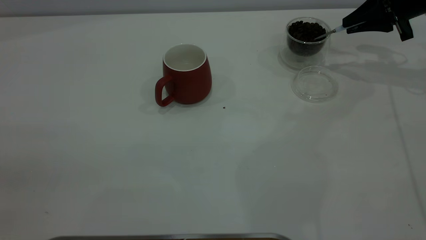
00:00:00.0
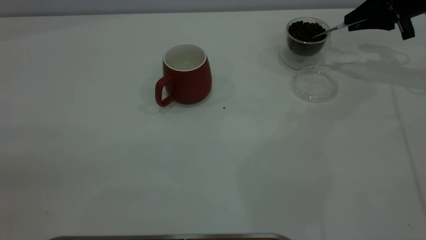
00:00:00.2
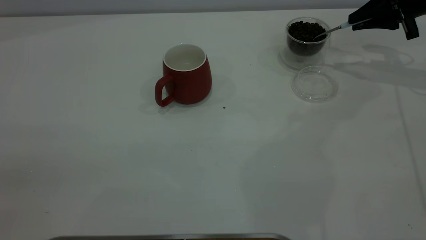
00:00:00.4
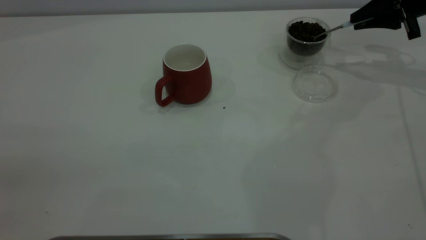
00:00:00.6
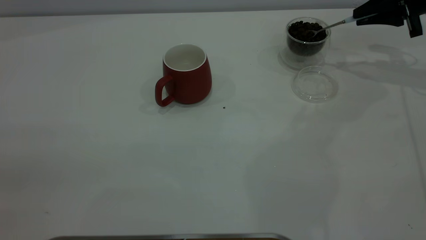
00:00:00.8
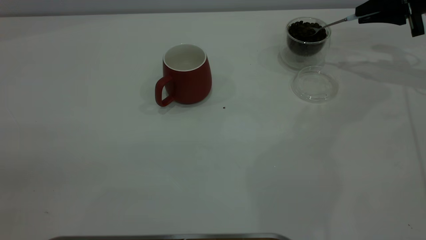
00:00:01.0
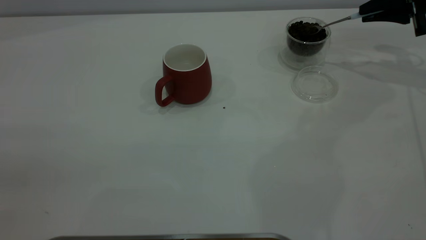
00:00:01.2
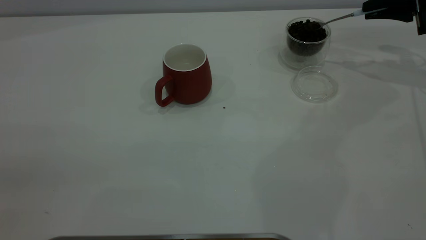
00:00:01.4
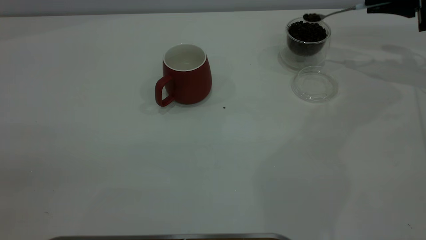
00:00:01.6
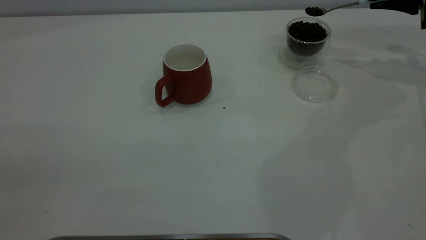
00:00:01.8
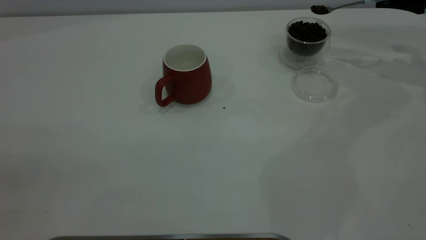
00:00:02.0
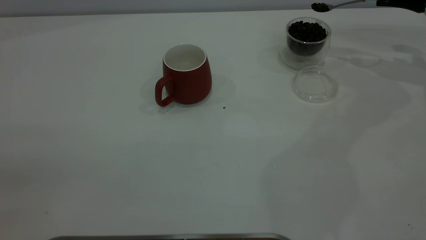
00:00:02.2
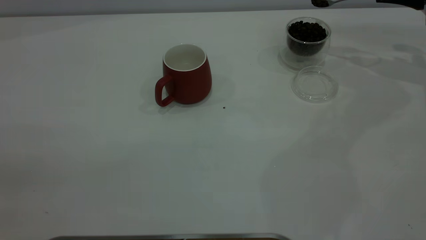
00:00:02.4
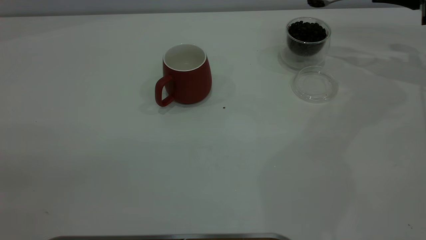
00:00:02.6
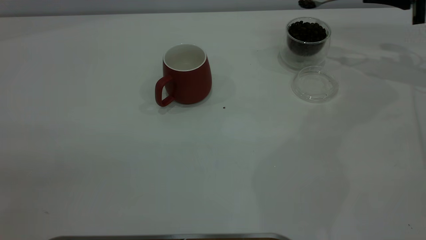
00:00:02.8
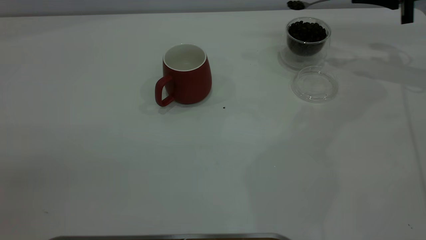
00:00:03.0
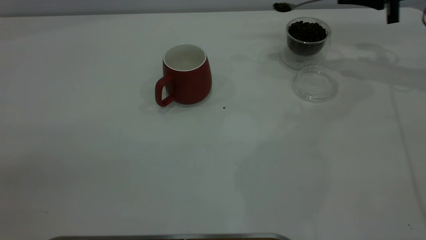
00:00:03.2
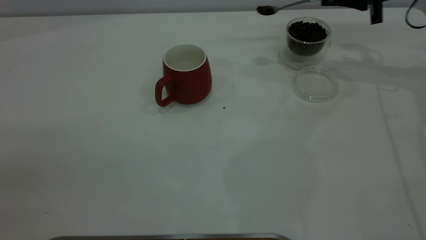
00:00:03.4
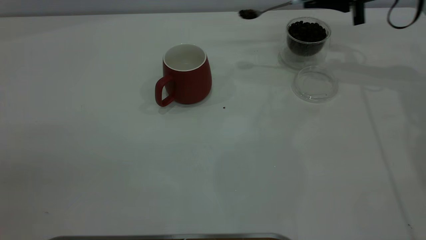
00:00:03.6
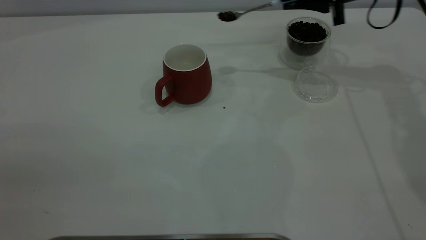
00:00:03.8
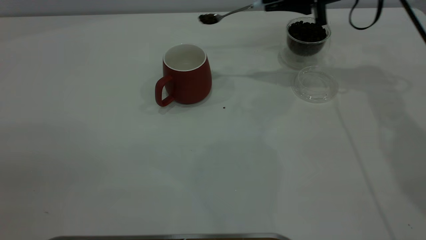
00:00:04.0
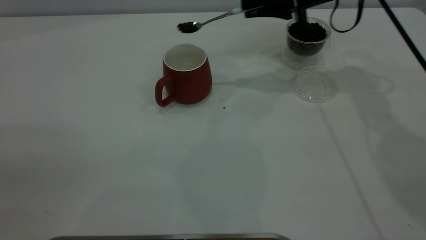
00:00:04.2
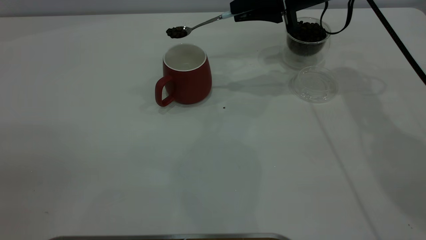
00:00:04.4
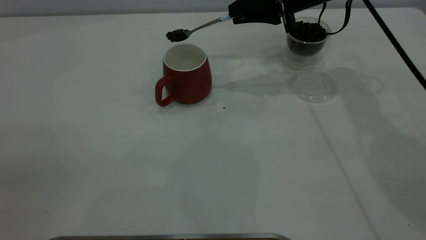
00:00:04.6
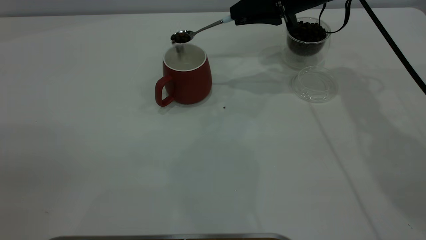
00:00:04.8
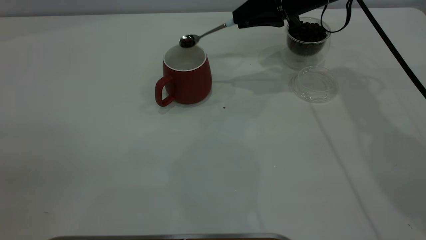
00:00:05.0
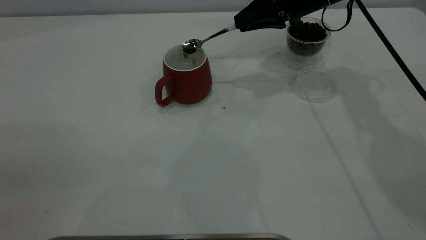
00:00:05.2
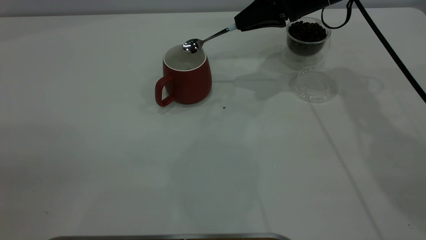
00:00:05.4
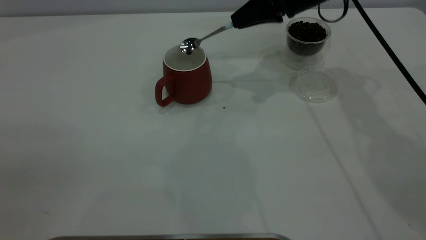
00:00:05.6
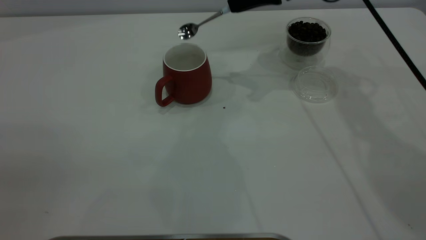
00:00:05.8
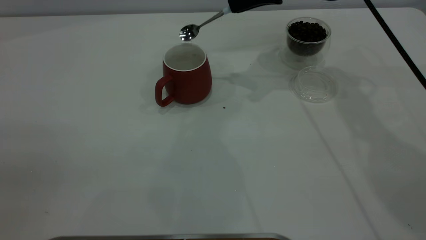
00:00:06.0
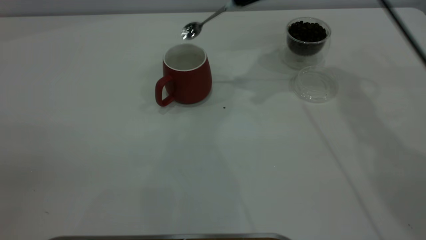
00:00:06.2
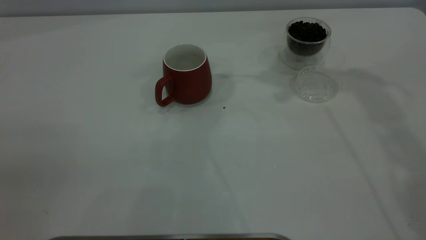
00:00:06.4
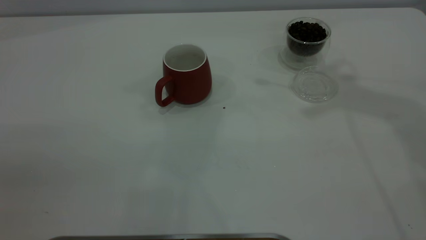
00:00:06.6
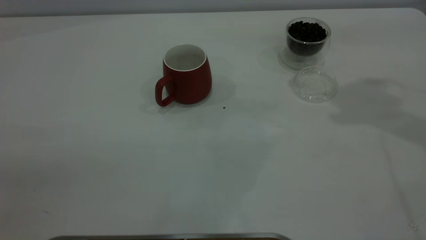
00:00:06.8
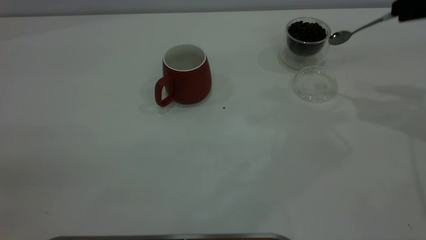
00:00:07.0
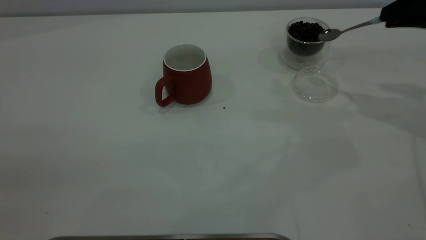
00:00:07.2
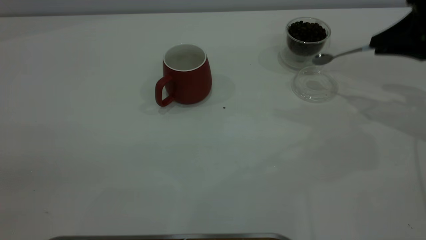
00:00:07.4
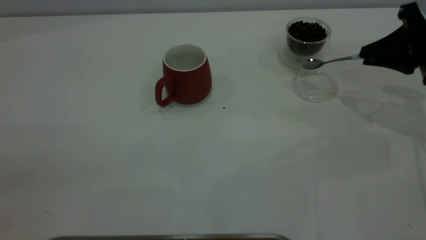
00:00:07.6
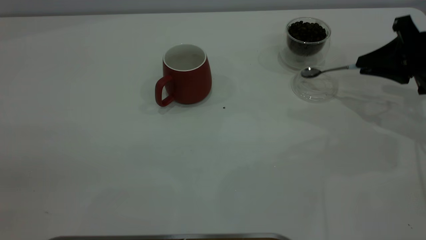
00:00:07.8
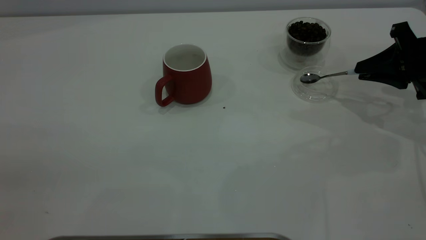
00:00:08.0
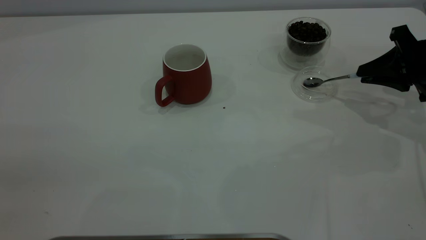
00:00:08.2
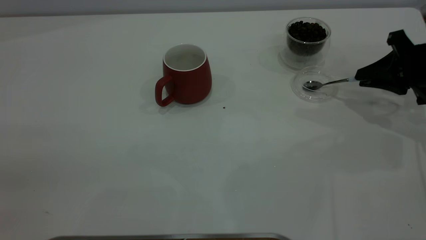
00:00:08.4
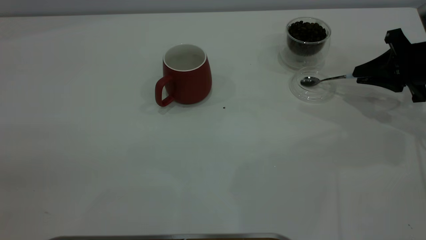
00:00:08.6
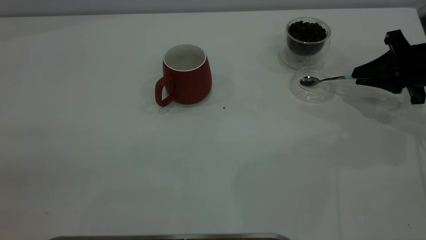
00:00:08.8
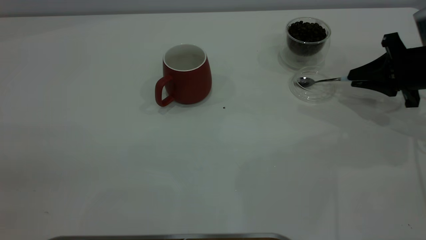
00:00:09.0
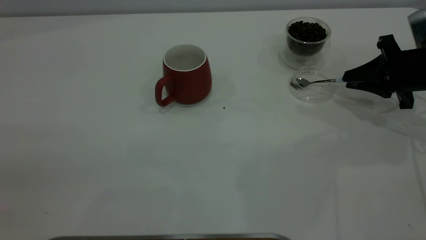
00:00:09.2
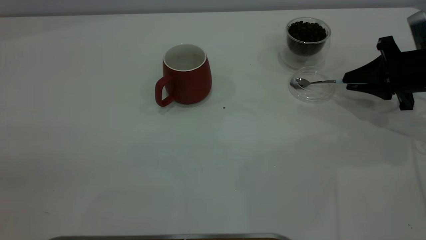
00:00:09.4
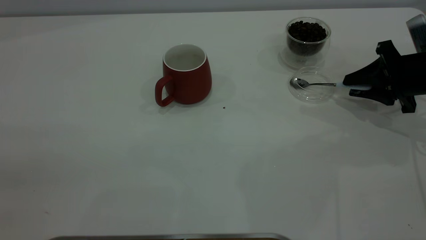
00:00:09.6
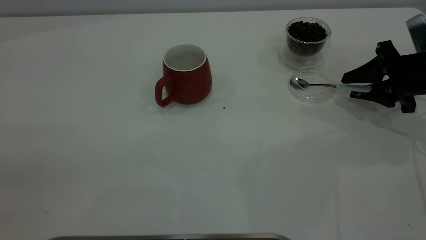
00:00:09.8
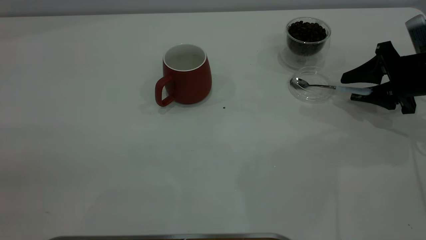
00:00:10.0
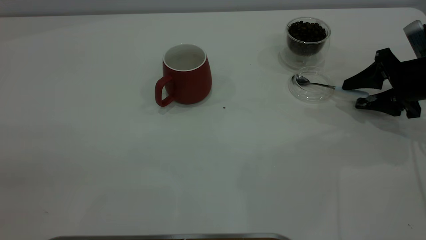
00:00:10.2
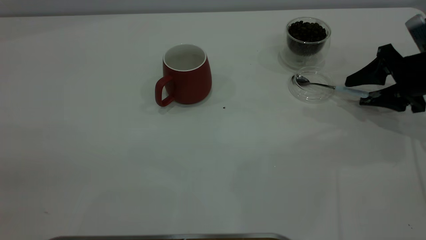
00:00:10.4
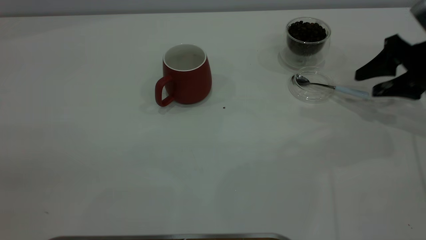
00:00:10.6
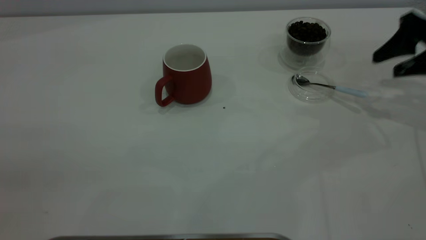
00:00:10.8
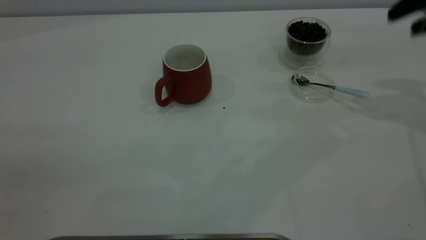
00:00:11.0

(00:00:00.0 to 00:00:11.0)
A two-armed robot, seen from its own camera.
Task of the whole recording: the left gripper place the red cup in the center of the table, the right gripper take the blue spoon from the cup lid and scoop out the coffee beans from the coffee cup and put them into the red cup, the right gripper put the spoon back into the cup lid.
Step, 00:00:00.0 - 00:00:05.8: Scoop a spoonful of beans into the cup.
Step, 00:00:06.0 - 00:00:10.6: Place the spoon back in its original place.
00:00:00.0 - 00:00:01.6: The grippers stay close to where they were, moving slightly.
00:00:01.6 - 00:00:03.2: The right gripper shifts some 5 cm to the left.
00:00:03.2 - 00:00:04.8: The right gripper shifts roughly 15 cm to the left.
00:00:04.8 - 00:00:06.2: The right gripper moves upward, roughly 5 cm.
00:00:06.2 - 00:00:07.8: The right gripper travels to the right, downward and backward by approximately 25 cm.
00:00:07.8 - 00:00:09.4: The grippers make only small movements.
00:00:09.4 - 00:00:11.0: The right gripper goes roughly 20 cm upward, and opens.

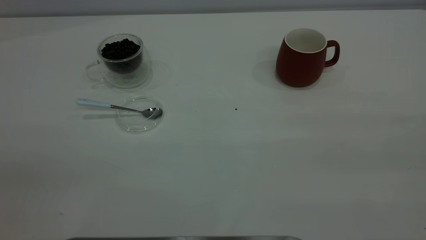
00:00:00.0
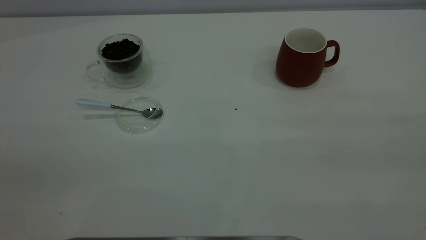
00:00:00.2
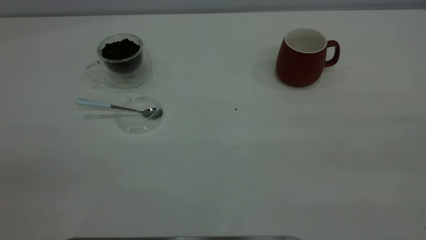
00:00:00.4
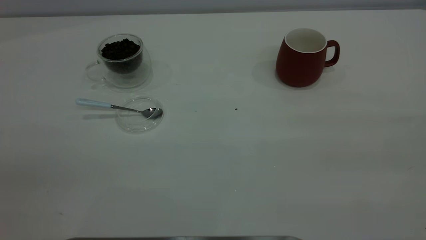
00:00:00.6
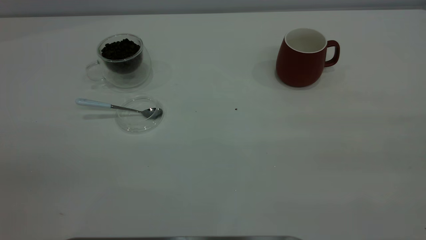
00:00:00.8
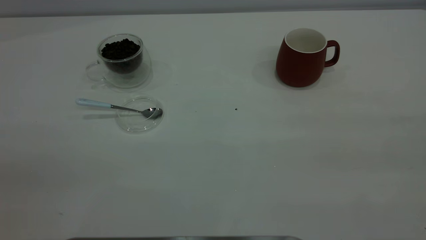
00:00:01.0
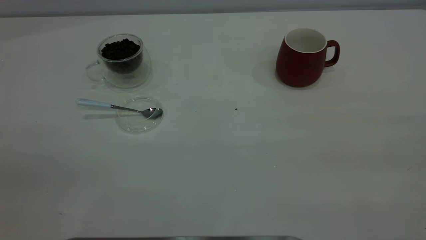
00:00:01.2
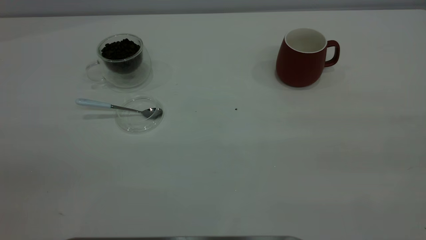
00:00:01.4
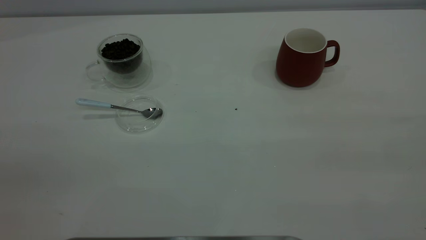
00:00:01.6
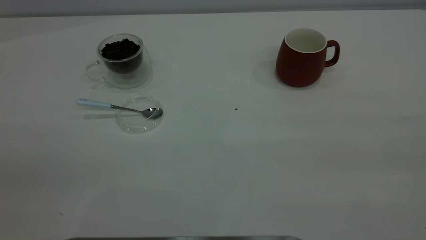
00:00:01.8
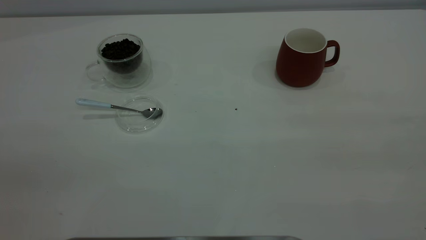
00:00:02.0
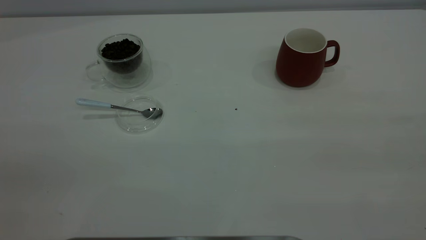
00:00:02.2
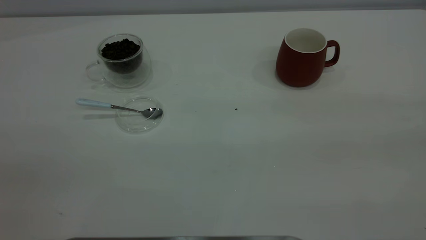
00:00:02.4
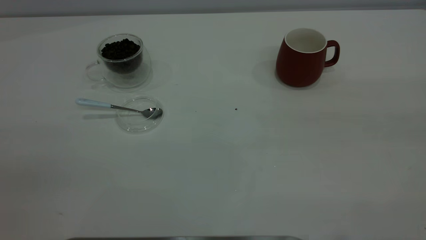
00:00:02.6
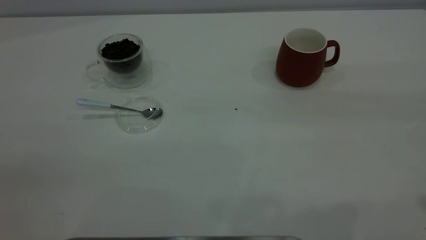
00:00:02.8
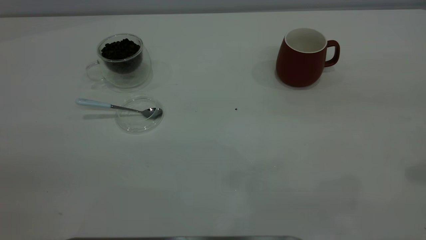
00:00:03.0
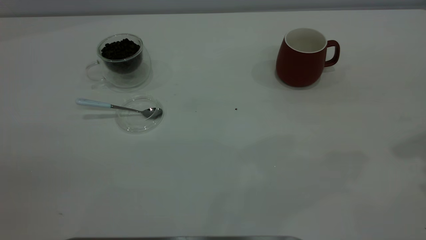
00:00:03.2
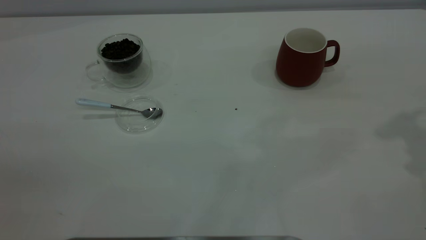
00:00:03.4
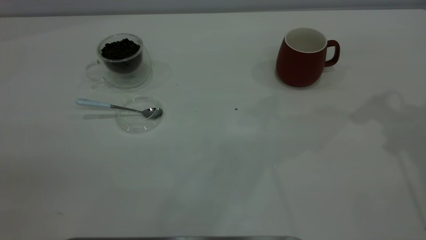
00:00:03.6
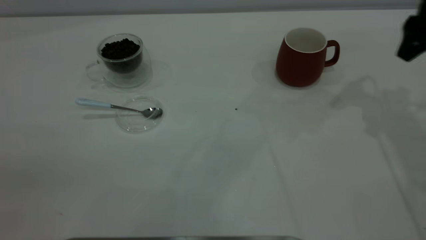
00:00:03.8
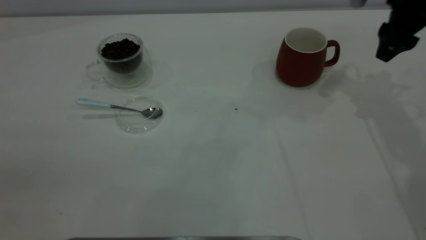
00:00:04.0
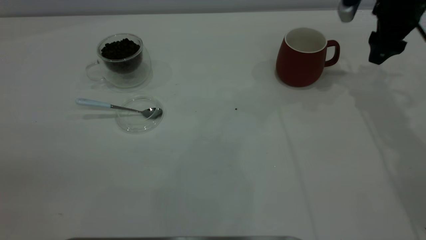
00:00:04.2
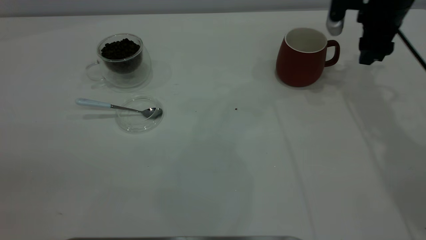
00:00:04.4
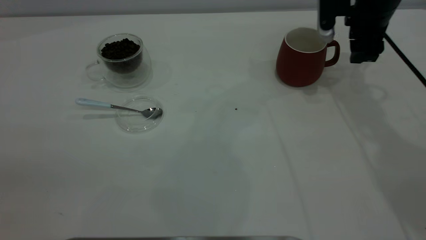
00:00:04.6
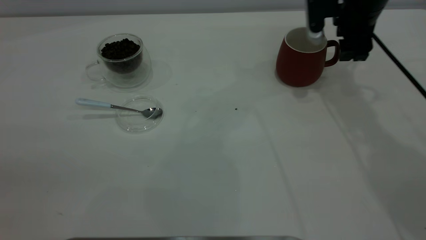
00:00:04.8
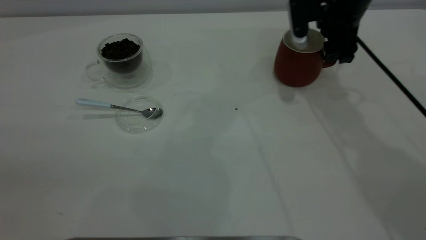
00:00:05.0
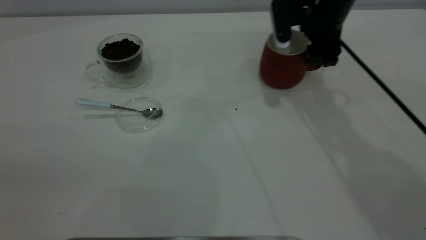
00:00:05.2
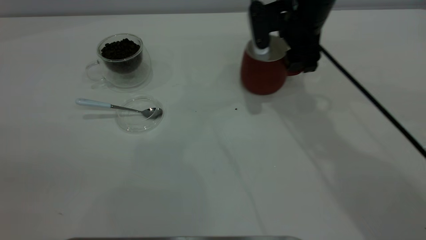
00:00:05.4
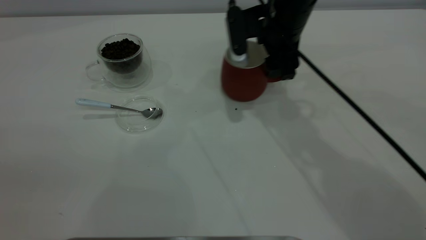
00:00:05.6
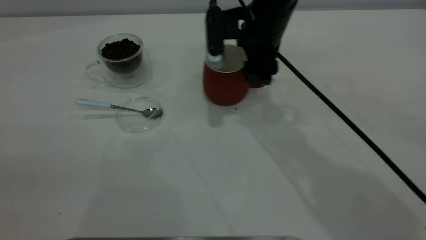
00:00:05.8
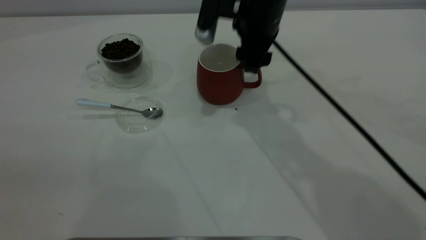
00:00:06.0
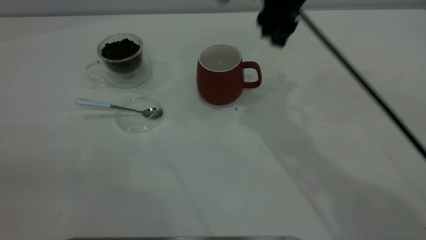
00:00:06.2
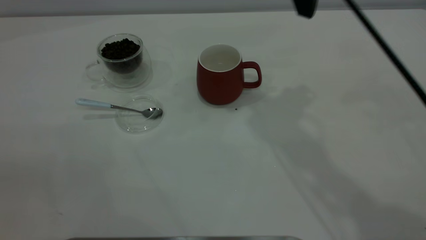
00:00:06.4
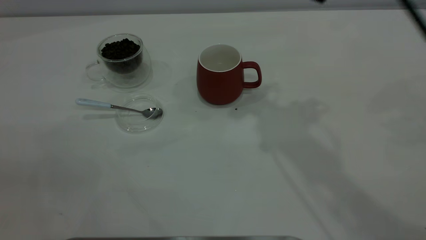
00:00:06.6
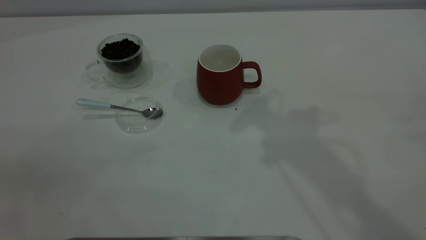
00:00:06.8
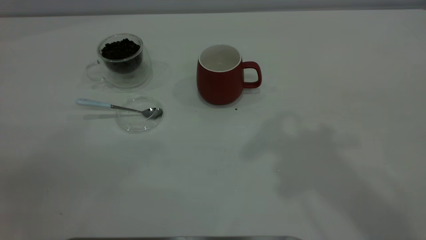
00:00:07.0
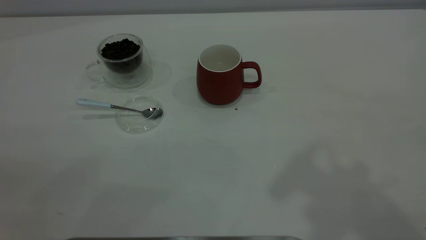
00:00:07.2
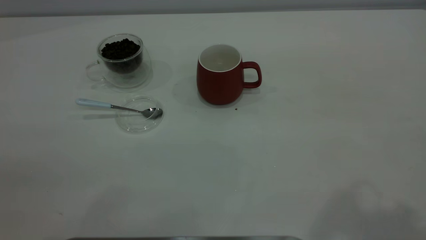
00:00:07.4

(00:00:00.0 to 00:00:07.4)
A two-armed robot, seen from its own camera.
Task of the whole recording: the right gripper place the red cup in the center of the table, the left gripper take the blue spoon from the cup lid and scoop out the coffee beans from the coffee cup and put them into the red cup, the left gripper put the spoon back into the cup lid.
Step, 00:00:00.0 - 00:00:06.0: Move the cup to the center of view.
00:00:00.0 - 00:00:01.4: Neither gripper changes place.
00:00:03.0 - 00:00:04.4: The right gripper heads forward and downward, covering approximately 30 cm.
00:00:04.4 - 00:00:06.0: The right gripper is displaced to the left by some 20 cm.
00:00:06.0 - 00:00:07.4: The right gripper is displaced backward, upward and to the right by approximately 40 cm.
